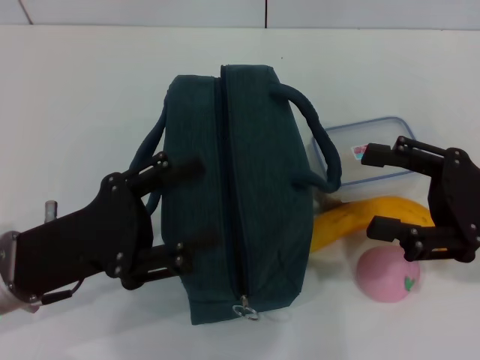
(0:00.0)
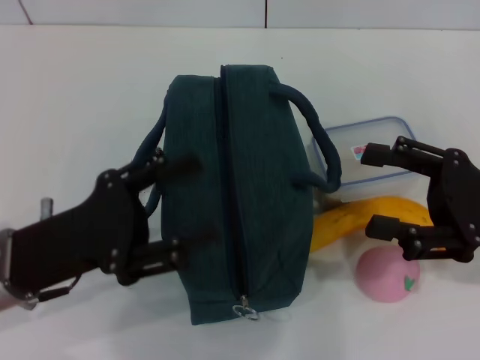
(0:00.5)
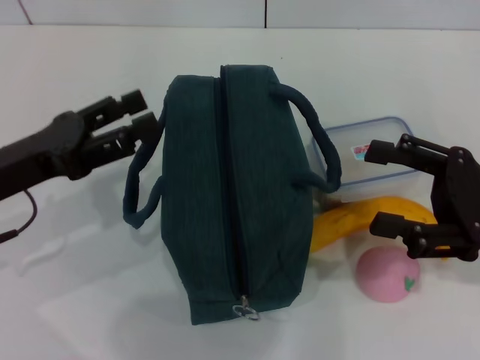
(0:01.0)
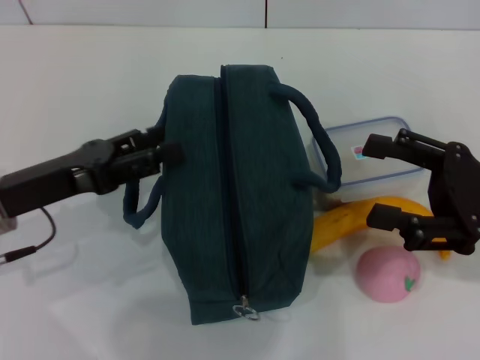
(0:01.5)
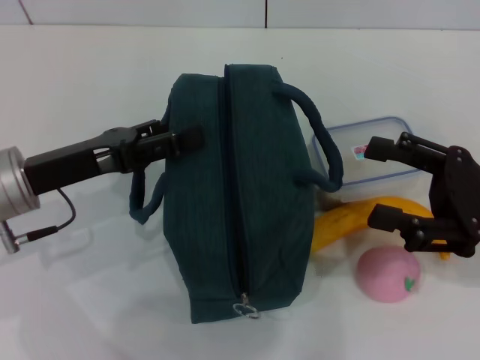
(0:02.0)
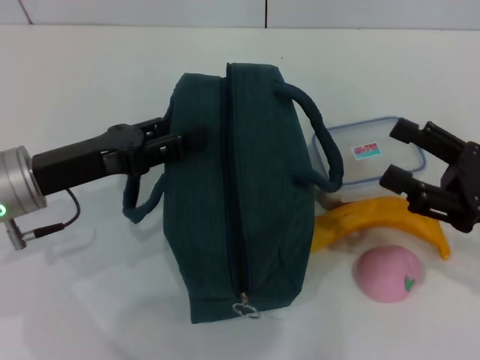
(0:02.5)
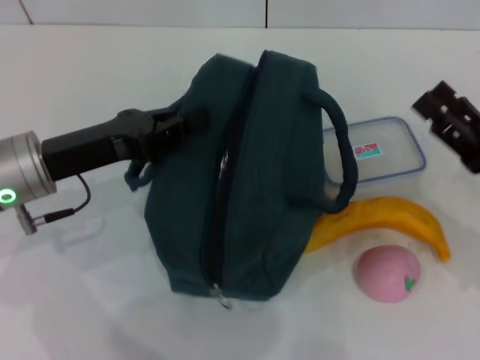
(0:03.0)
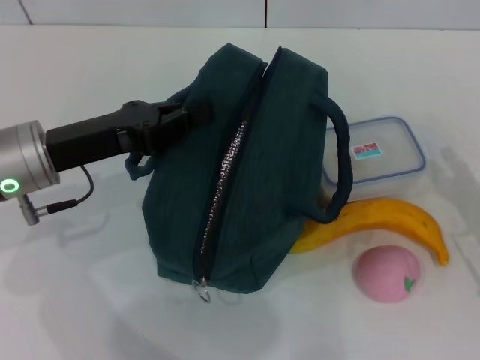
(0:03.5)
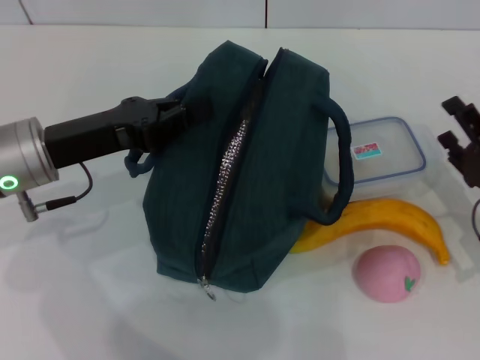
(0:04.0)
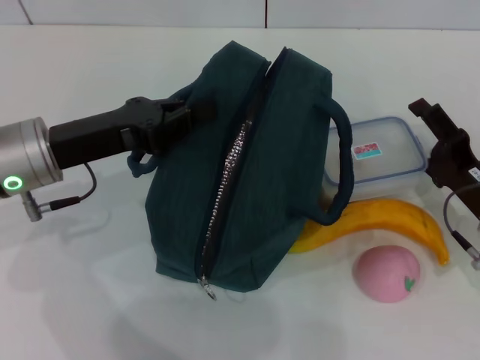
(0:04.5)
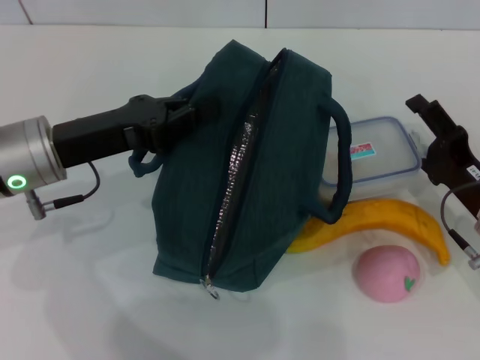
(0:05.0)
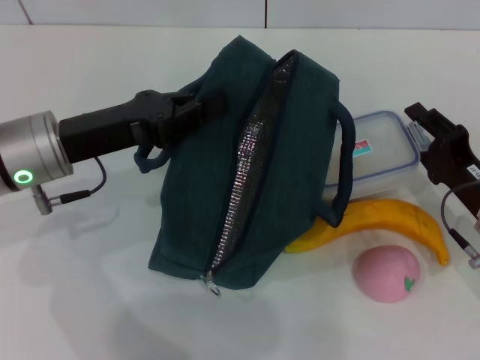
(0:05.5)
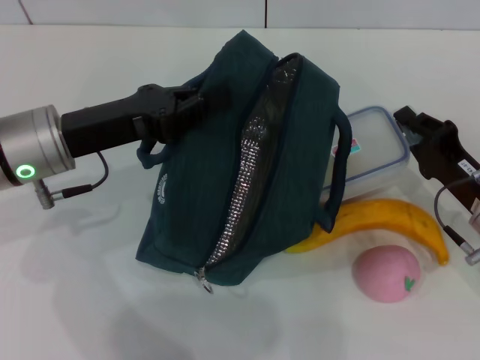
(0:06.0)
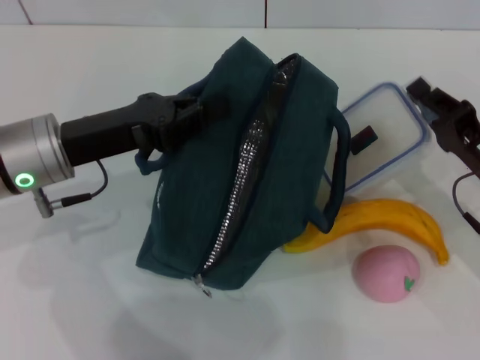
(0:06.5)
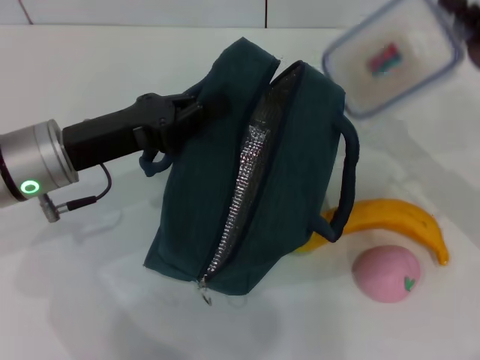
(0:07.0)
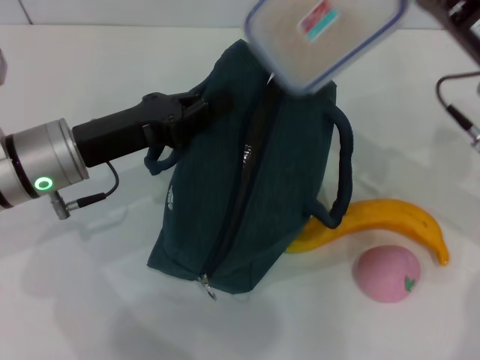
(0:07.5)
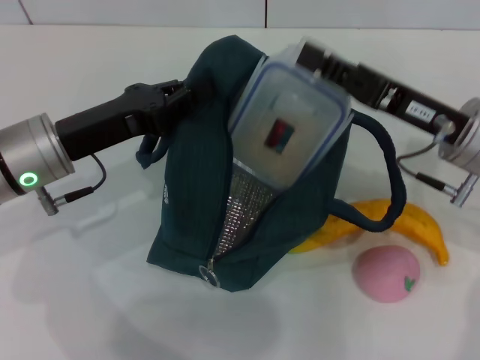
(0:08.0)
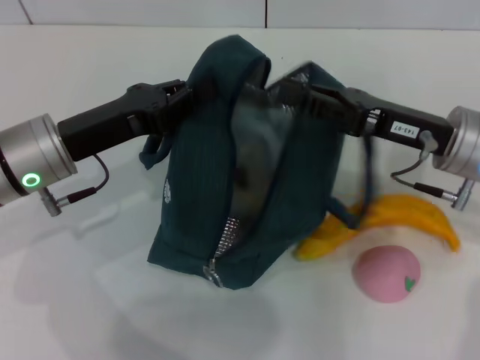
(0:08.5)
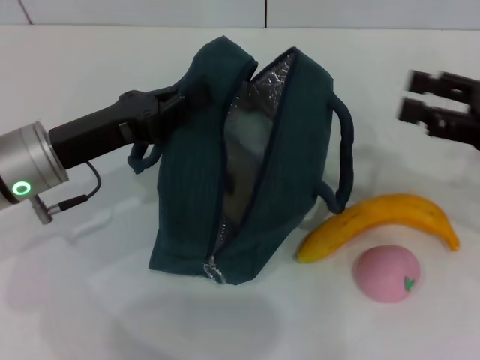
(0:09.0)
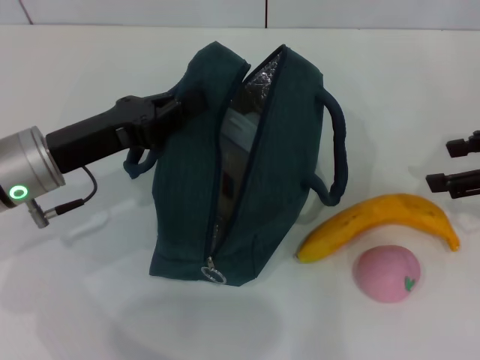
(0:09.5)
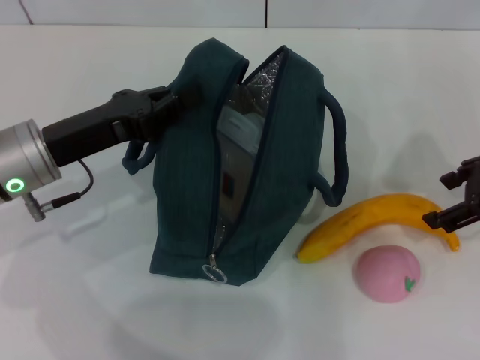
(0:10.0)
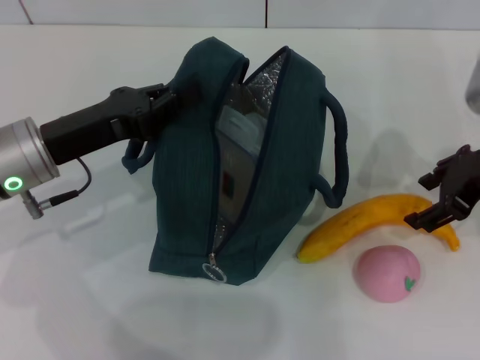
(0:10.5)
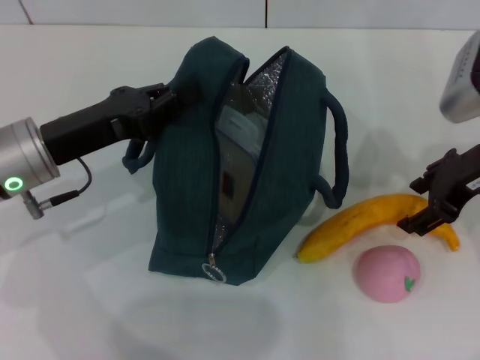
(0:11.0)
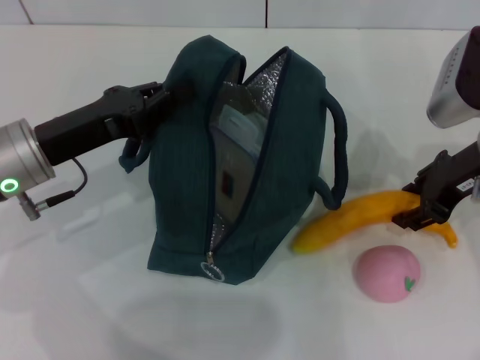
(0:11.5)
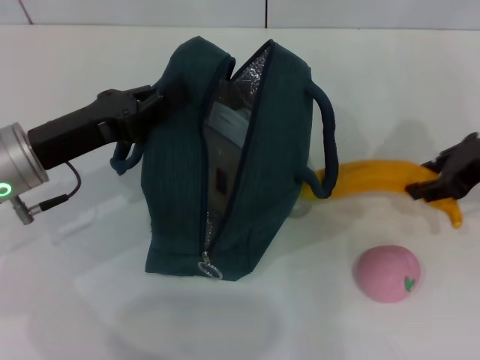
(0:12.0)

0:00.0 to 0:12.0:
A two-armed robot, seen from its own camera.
Step, 0:00.0 to 0:02.5: Hold the lunch bag with your left hand.
Step, 0:03.0 to 0:05.5: Pick up the lunch box with your right hand.
Step, 0:06.0 to 0:08.5: Place the lunch box into the lunch bag with your right hand.
Step, 0:09.0 to 0:11.0: Take the banana with your right hand.
0:00.0 to 0:02.0: The left gripper moves forward, about 5 cm.
0:02.0 to 0:04.0: The right gripper is displaced downward by some 10 cm. Meanwhile the left gripper closes.
0:04.0 to 0:06.0: The right gripper closes up.
0:06.0 to 0:08.0: The right gripper heads upward, covering approximately 10 cm.
0:08.0 to 0:10.0: The right gripper moves to the right and upward, some 10 cm, and opens.
0:10.0 to 0:12.0: The right gripper closes.

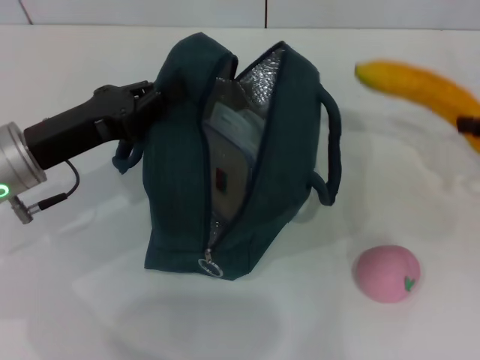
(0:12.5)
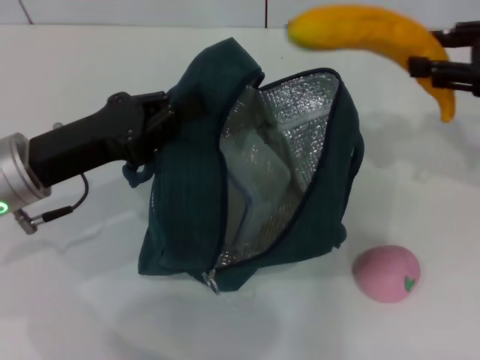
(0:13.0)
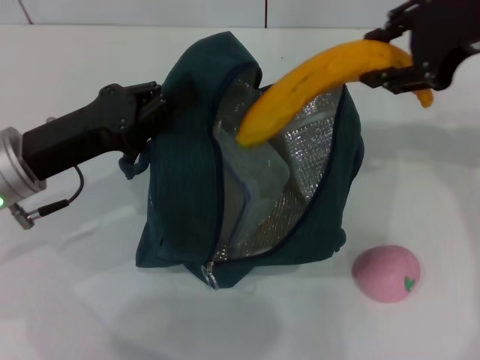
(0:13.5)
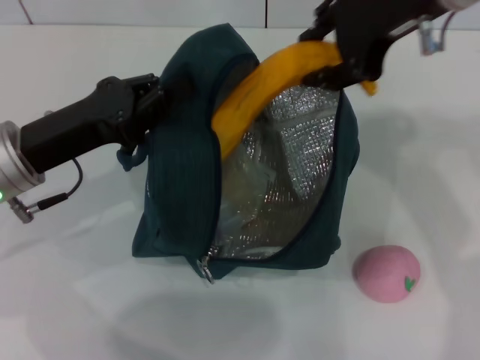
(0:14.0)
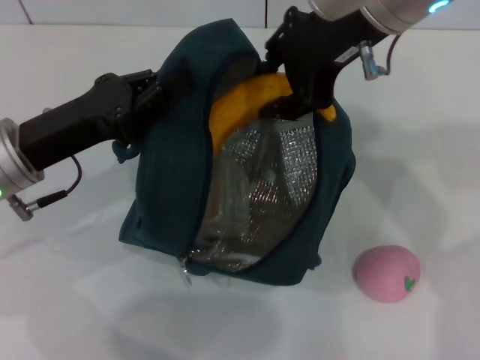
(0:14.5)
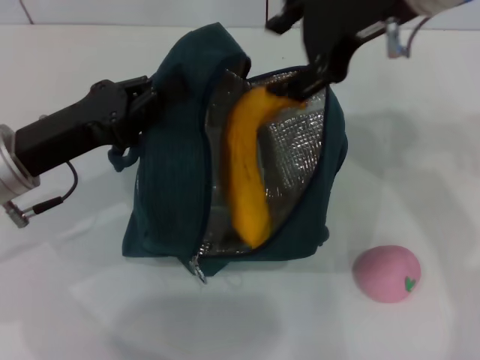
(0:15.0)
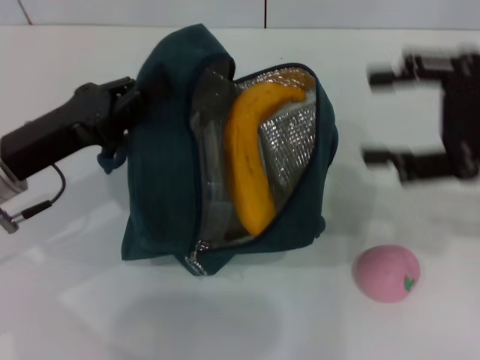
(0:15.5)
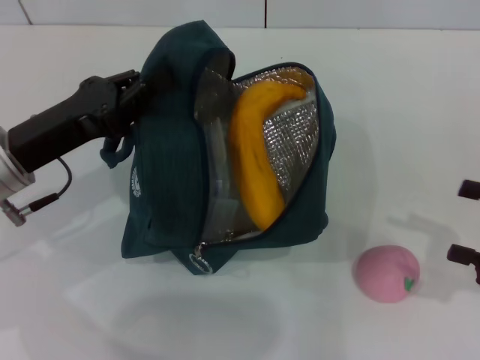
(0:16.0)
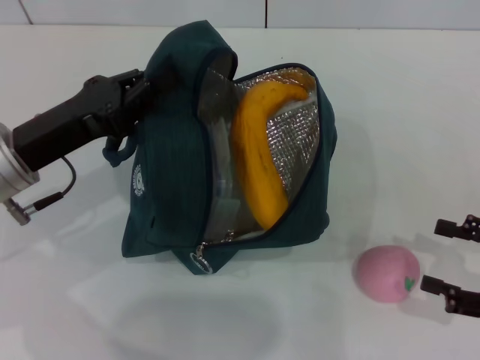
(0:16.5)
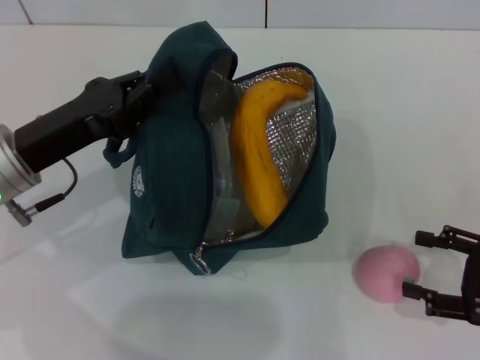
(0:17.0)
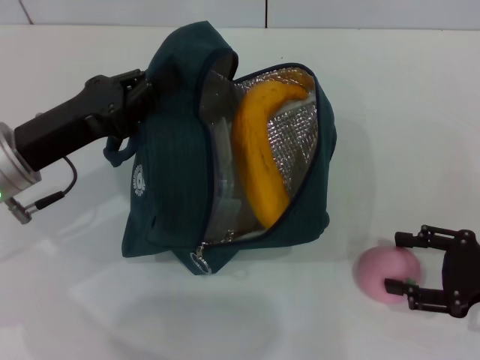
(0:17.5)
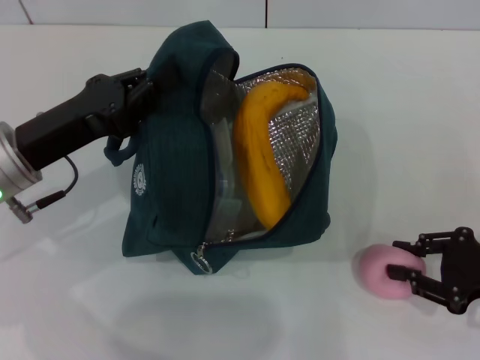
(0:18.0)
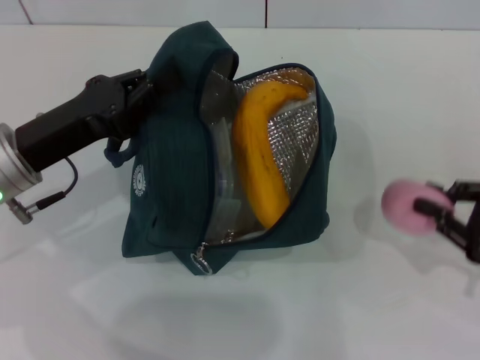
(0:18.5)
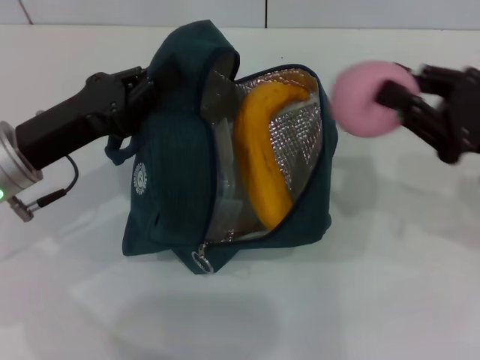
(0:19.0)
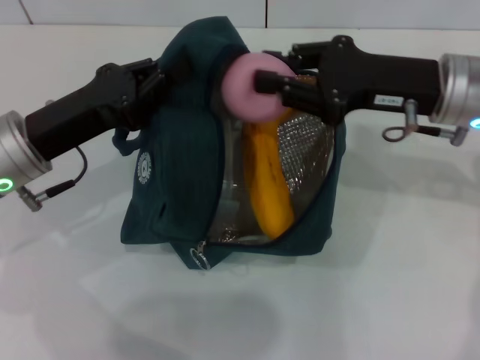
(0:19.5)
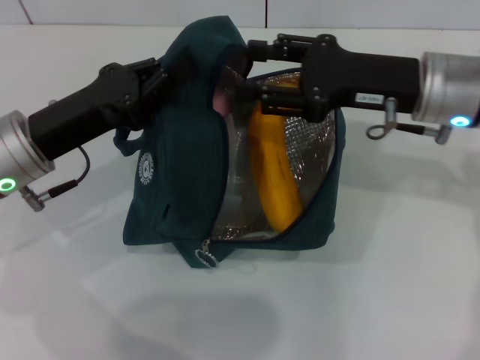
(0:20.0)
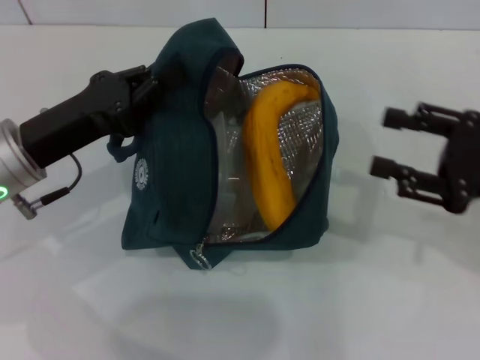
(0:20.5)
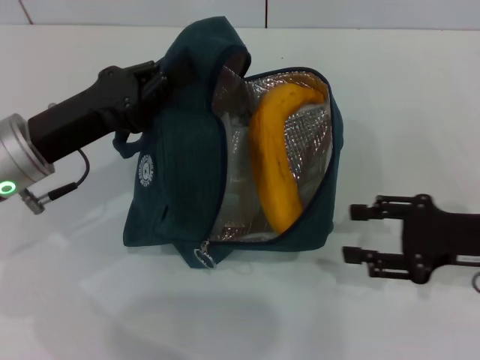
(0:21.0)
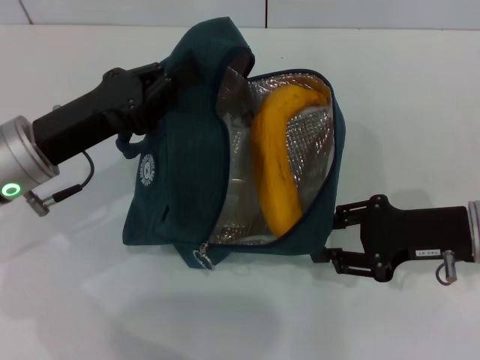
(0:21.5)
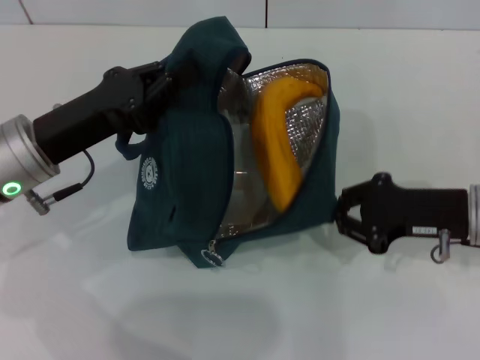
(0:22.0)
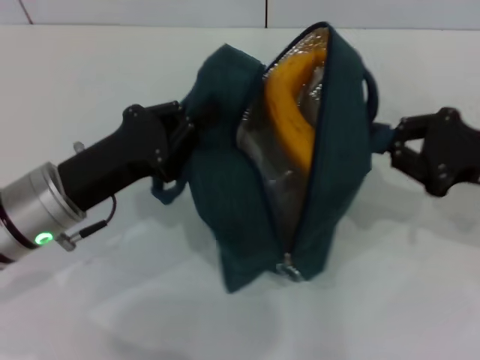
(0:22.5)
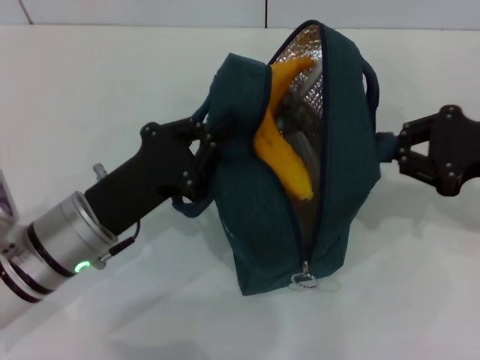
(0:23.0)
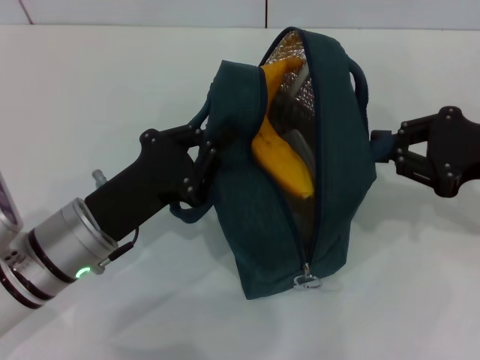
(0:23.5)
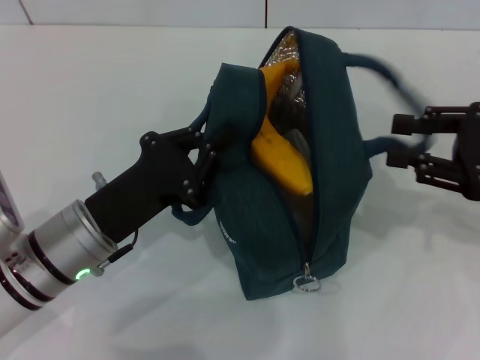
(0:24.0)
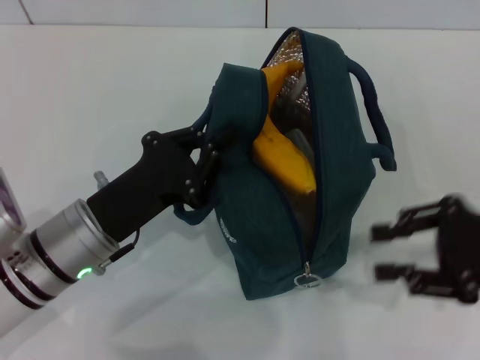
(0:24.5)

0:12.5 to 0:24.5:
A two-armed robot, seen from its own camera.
Step, 0:12.5 to 0:15.0: Put the banana into the lunch bag with your right hand.
Step, 0:15.5 to 0:18.0: Grab the peach with your right hand.
Step, 0:20.5 to 0:24.0: Hold the lunch bag with your right hand.
0:12.5 to 0:14.5: The right gripper heads to the left and upward, covering approximately 30 cm.
0:14.5 to 0:16.5: The right gripper moves to the right, downward and backward, some 40 cm, and opens up.
0:16.5 to 0:18.5: The right gripper closes its fingers.
0:18.5 to 0:20.5: The right gripper heads upward, covering roughly 5 cm, moves roughly 15 cm to the left and comes back, and opens up.
0:20.5 to 0:22.5: The right gripper closes up.
0:22.5 to 0:24.5: The right gripper opens up.

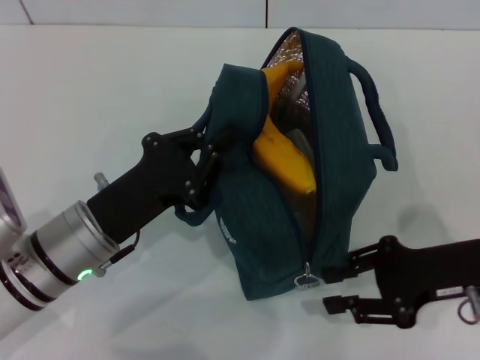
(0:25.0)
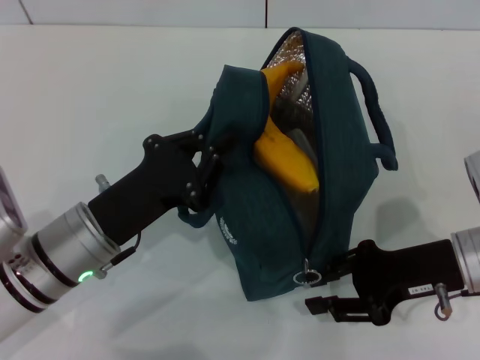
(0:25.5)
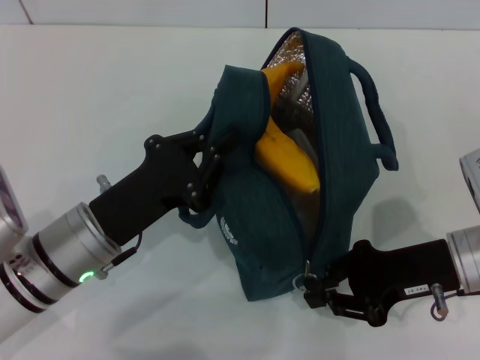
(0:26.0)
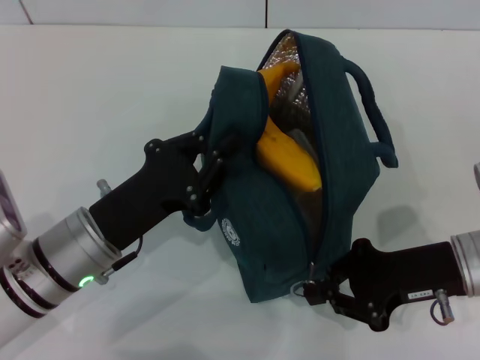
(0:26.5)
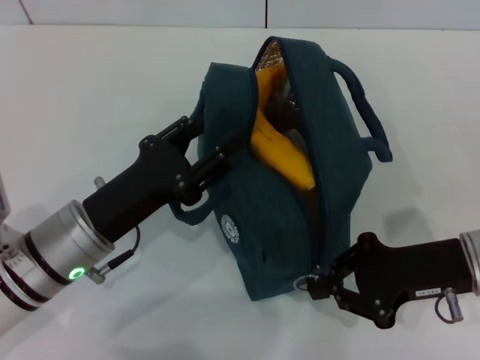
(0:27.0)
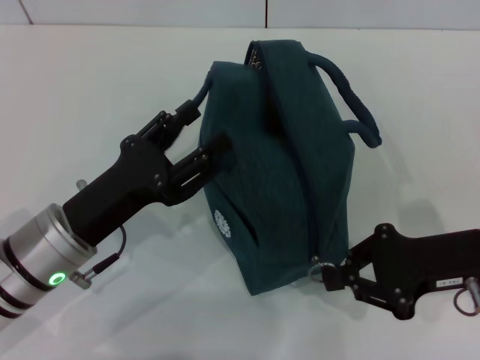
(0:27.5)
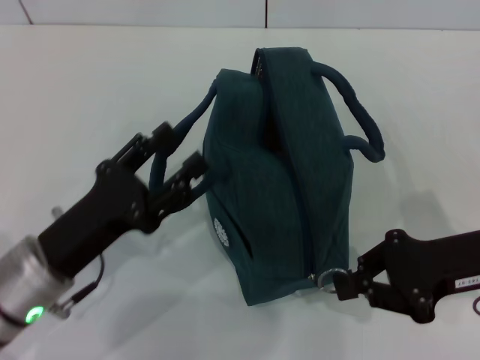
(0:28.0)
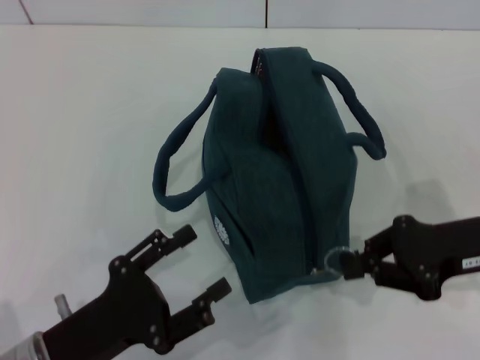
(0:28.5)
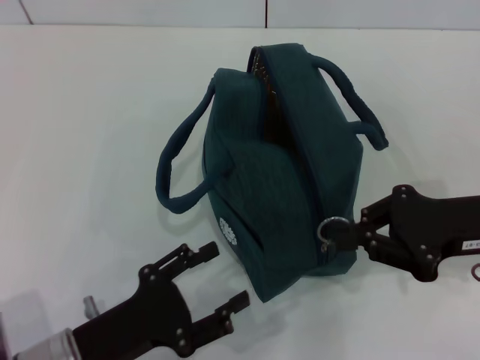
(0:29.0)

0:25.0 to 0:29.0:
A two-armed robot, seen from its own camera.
Step, 0:25.0 to 0:27.5: Hold the lunch bag with your left hand.
0:25.0 to 0:27.0: The right gripper closes its fingers.
0:27.0 to 0:29.0: The right gripper ends up about 5 cm from where it was. The left gripper is displaced backward by roughly 10 cm, and opens its fingers.
